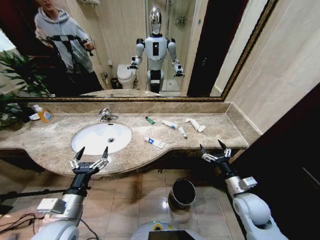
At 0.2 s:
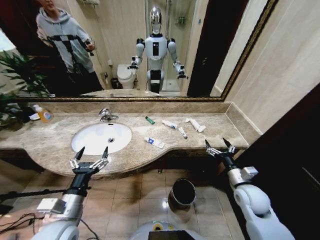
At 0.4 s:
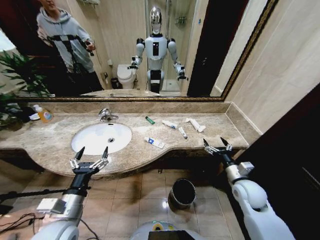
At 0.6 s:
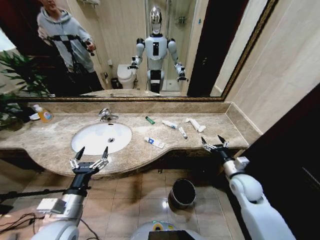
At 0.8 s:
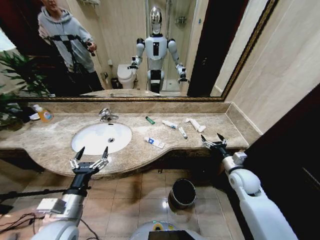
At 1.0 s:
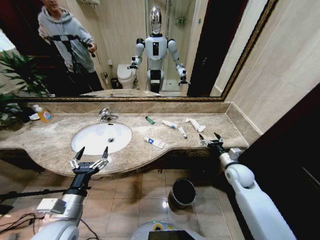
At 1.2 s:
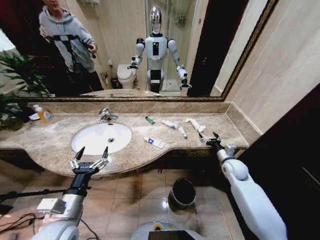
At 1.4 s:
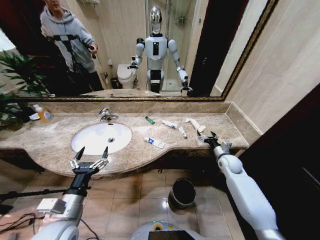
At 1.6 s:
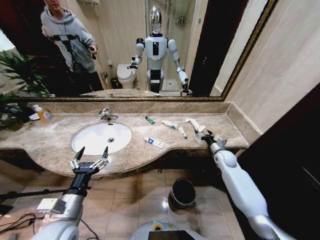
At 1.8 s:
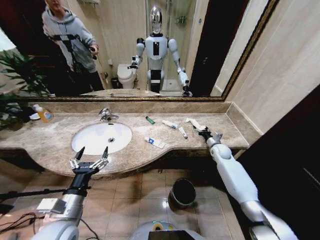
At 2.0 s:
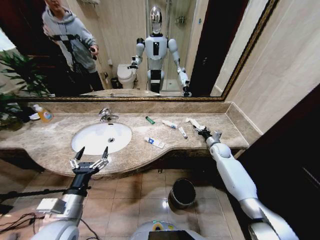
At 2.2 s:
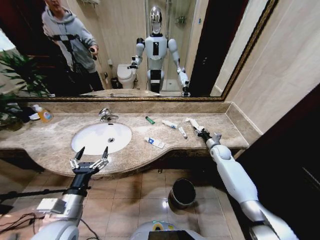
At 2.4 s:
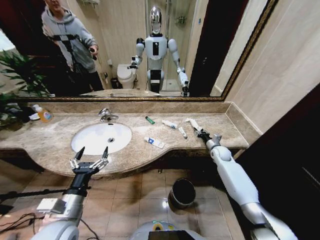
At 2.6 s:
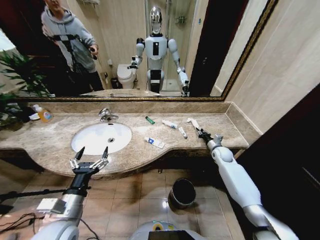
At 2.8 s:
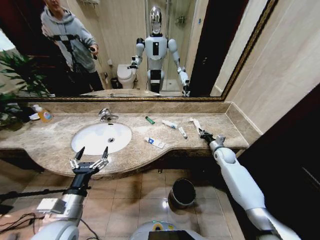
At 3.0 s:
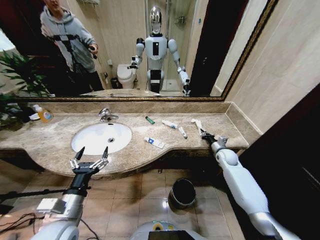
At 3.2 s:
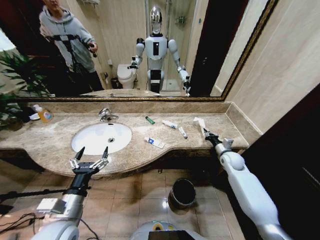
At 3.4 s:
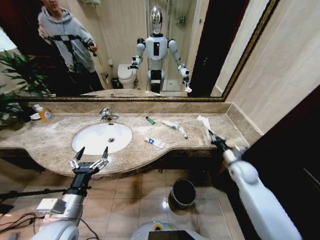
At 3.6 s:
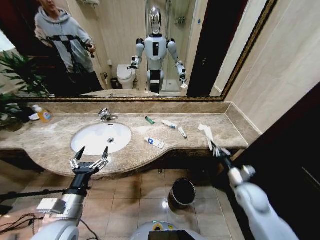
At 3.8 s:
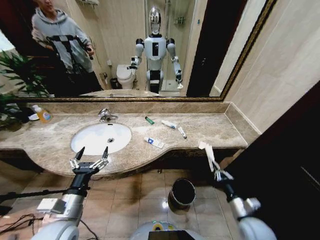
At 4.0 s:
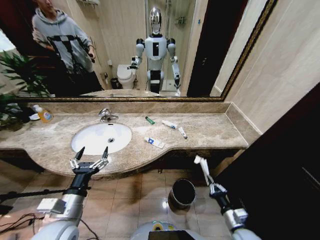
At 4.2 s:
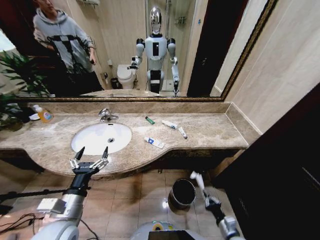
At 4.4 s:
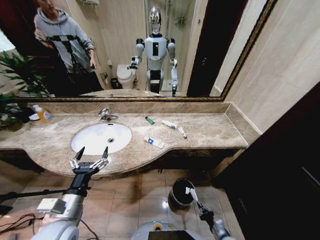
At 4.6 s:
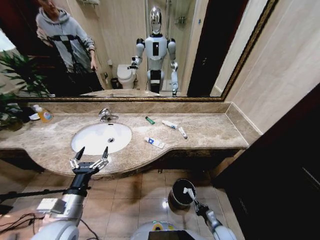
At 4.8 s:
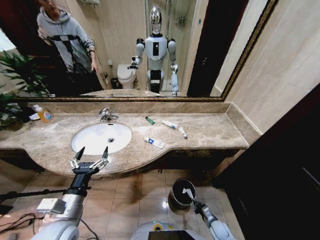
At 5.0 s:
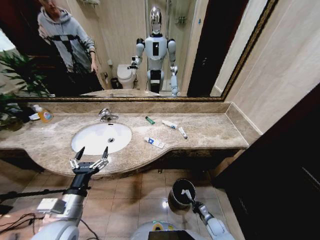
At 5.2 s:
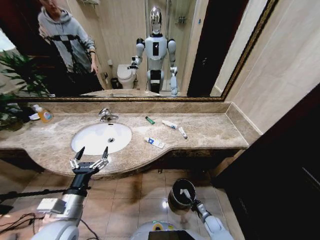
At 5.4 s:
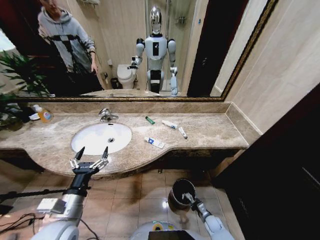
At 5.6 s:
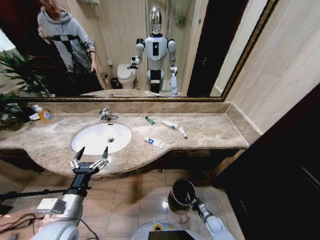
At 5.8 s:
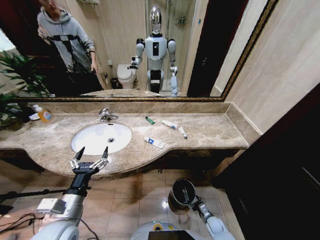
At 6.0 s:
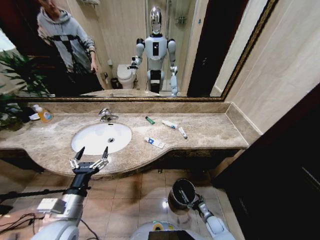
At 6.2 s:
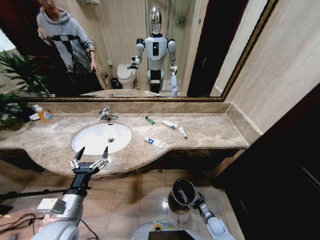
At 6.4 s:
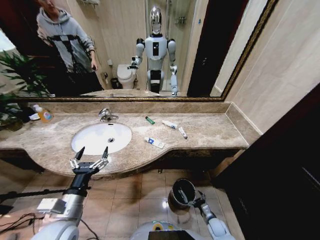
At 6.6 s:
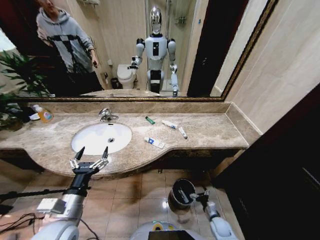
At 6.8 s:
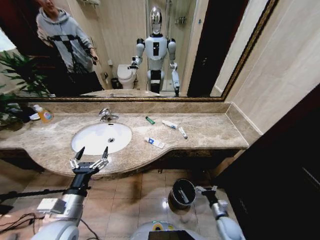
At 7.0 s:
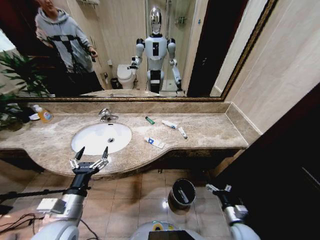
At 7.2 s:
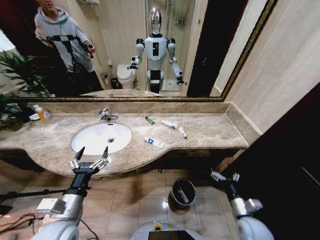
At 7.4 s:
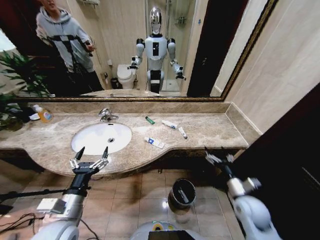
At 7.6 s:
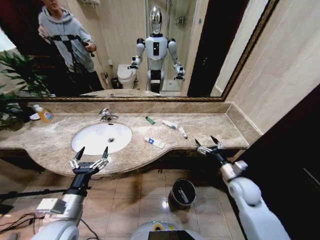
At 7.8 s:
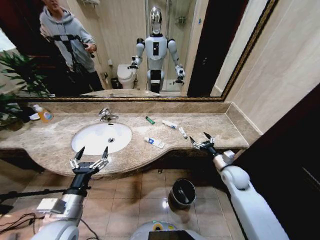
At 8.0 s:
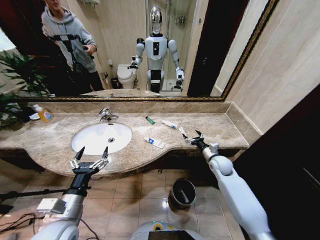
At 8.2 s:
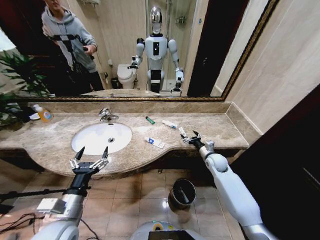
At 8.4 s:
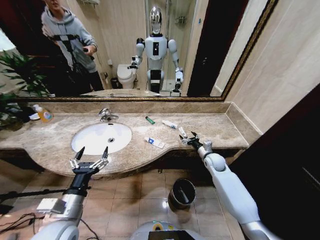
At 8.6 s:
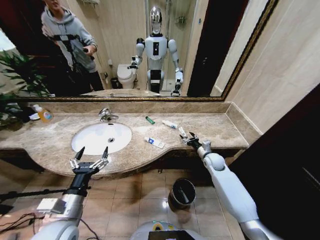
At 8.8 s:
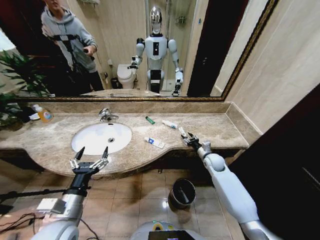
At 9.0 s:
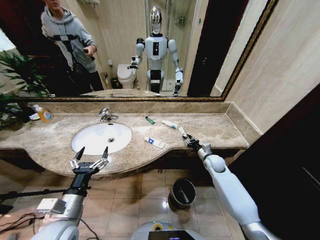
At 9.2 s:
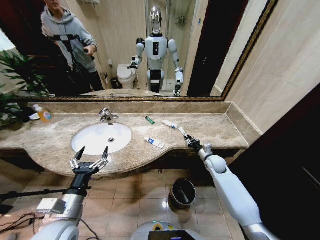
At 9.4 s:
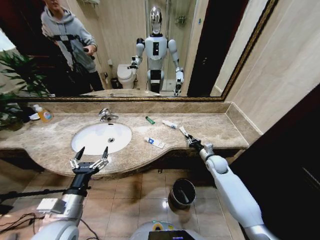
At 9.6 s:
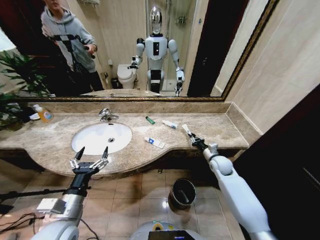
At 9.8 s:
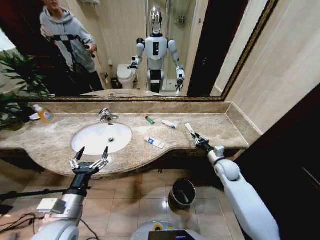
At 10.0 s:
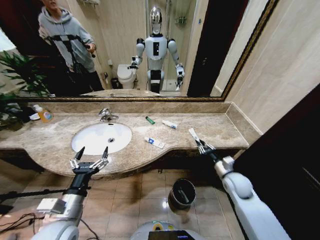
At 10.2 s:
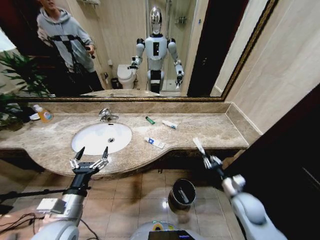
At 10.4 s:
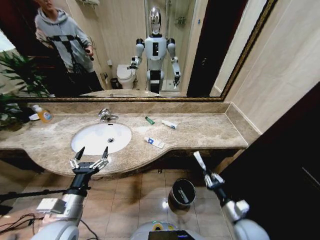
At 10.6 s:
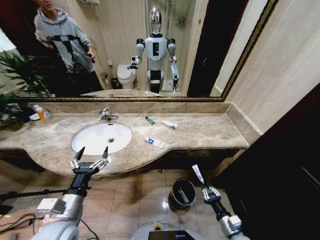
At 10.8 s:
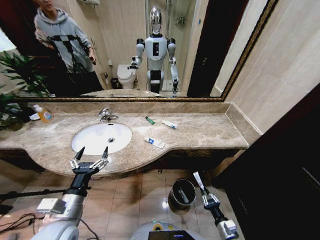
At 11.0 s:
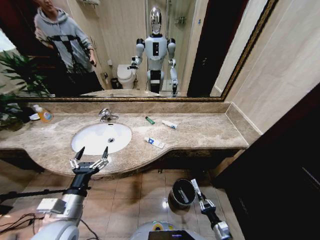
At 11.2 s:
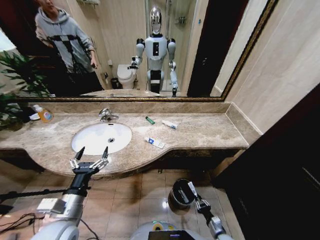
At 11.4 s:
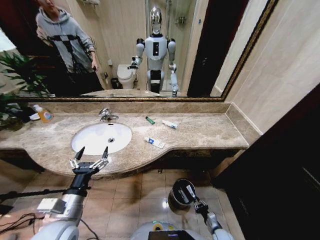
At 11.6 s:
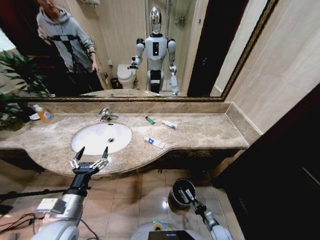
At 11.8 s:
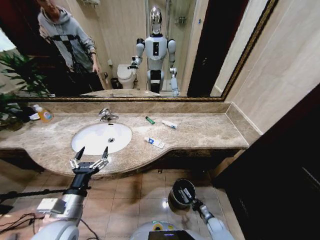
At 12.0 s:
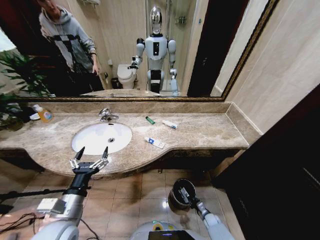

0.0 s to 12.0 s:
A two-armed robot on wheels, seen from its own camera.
Task of the whole recording: Pick up the trash from the sink and place it in the trash bin.
1.6 to 3.0 s: The right gripper closes its fingers.
3.0 to 4.4 s: The right gripper heads backward and downward, covering roughly 40 cm.
4.4 to 6.0 s: The right gripper is displaced forward and downward by roughly 10 cm, and opens.
6.0 to 7.6 s: The right gripper moves upward, approximately 35 cm.
7.6 to 9.0 s: The right gripper heads forward, covering roughly 15 cm, and closes its fingers.
9.0 to 10.4 s: The right gripper moves backward, some 30 cm.
10.4 to 12.0 s: The right gripper shifts some 30 cm downward.

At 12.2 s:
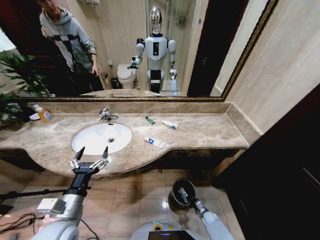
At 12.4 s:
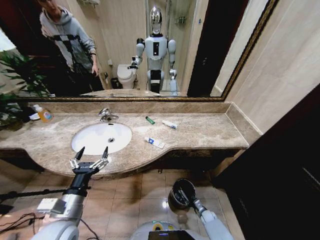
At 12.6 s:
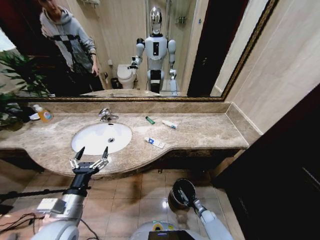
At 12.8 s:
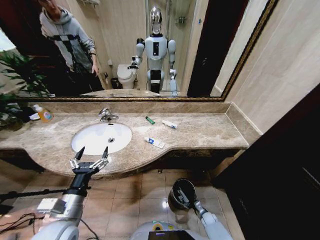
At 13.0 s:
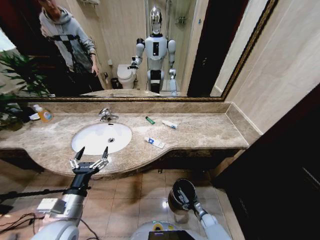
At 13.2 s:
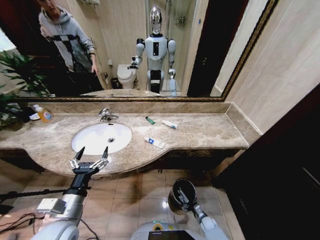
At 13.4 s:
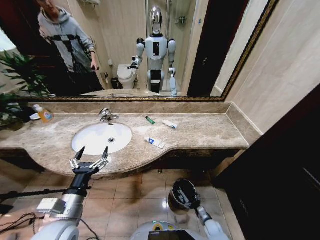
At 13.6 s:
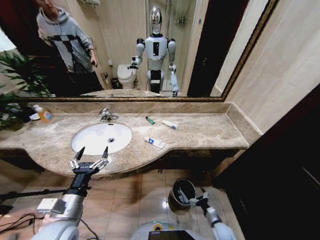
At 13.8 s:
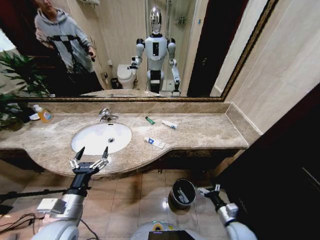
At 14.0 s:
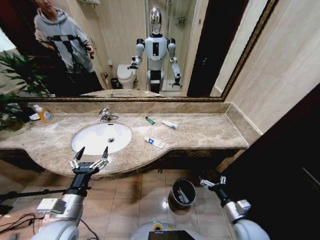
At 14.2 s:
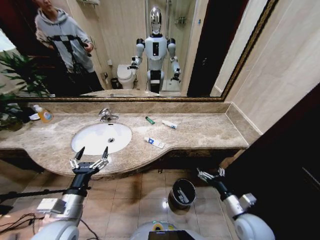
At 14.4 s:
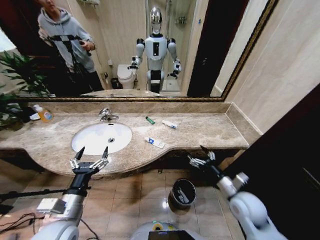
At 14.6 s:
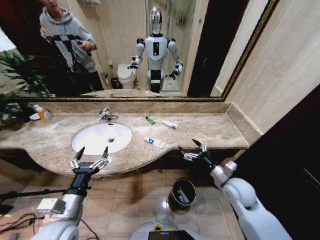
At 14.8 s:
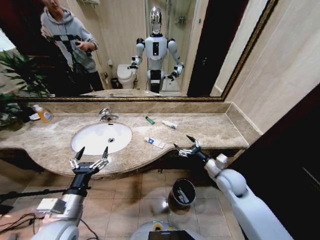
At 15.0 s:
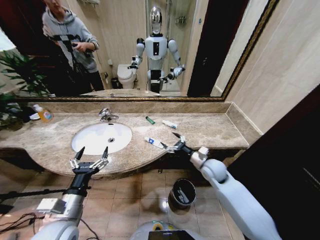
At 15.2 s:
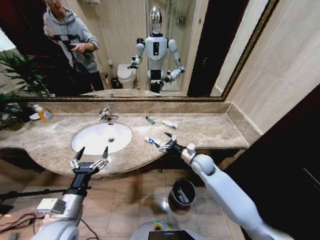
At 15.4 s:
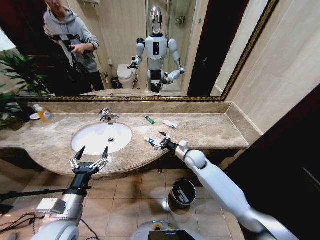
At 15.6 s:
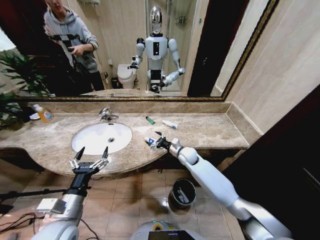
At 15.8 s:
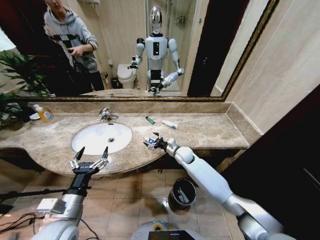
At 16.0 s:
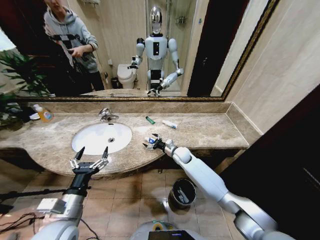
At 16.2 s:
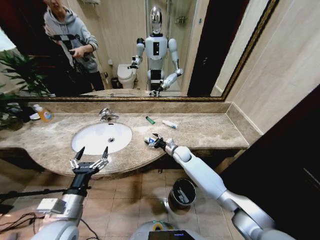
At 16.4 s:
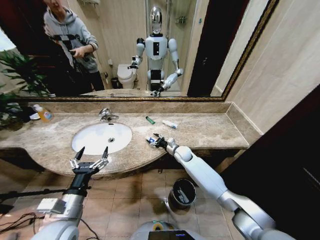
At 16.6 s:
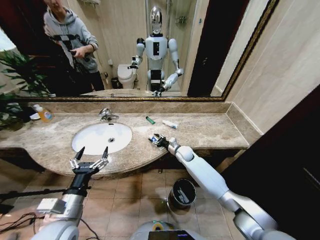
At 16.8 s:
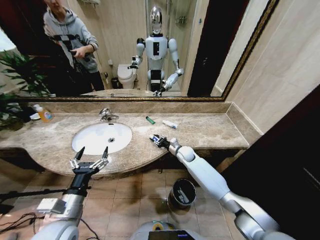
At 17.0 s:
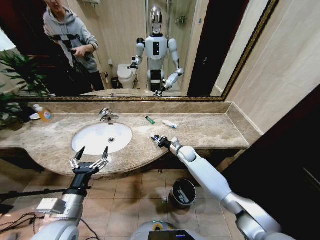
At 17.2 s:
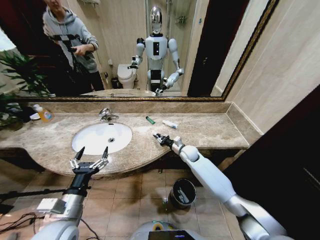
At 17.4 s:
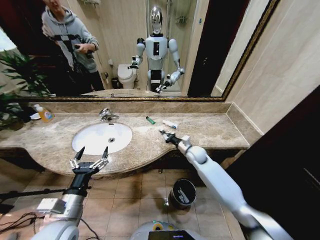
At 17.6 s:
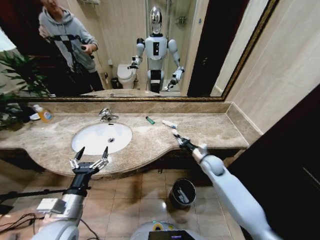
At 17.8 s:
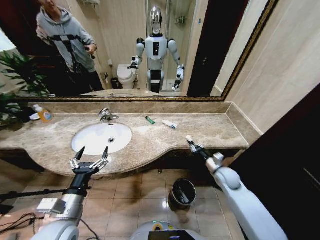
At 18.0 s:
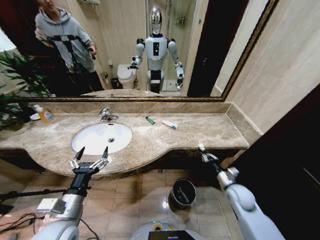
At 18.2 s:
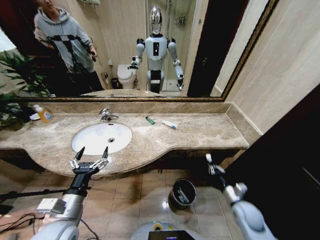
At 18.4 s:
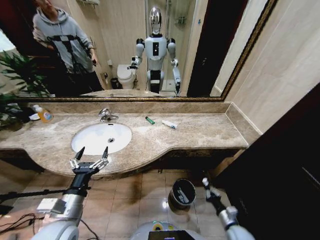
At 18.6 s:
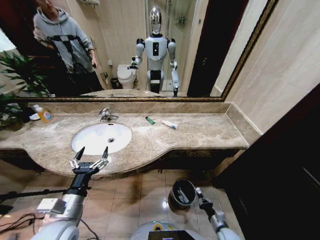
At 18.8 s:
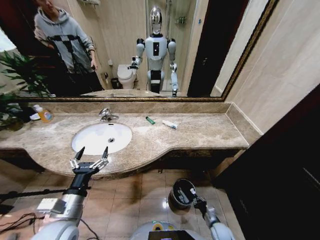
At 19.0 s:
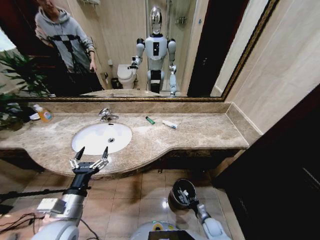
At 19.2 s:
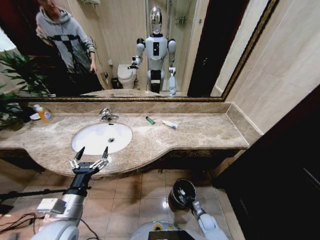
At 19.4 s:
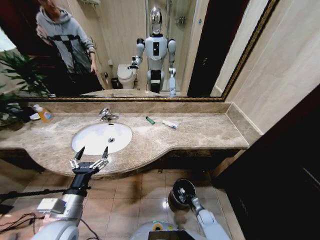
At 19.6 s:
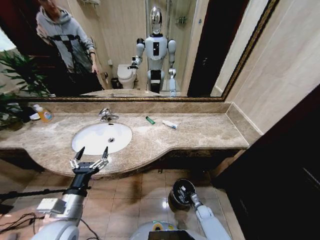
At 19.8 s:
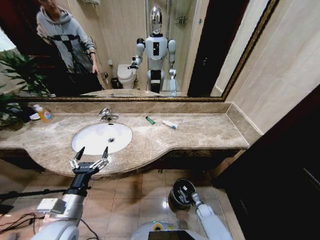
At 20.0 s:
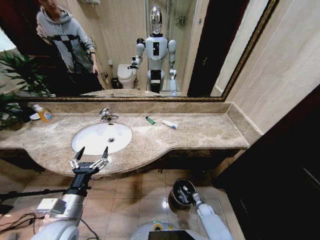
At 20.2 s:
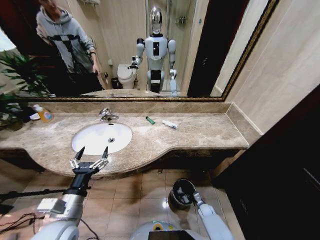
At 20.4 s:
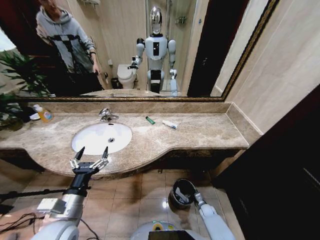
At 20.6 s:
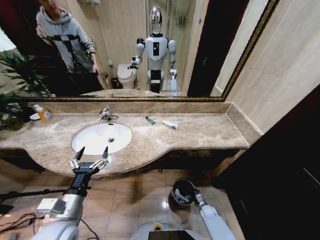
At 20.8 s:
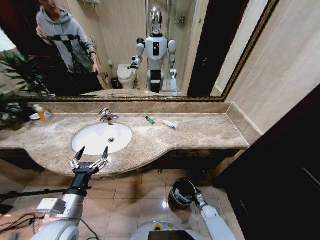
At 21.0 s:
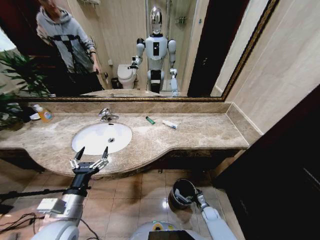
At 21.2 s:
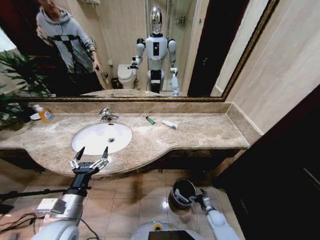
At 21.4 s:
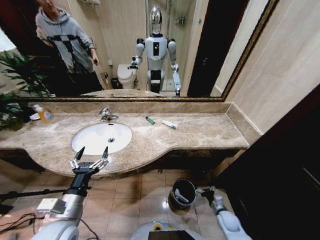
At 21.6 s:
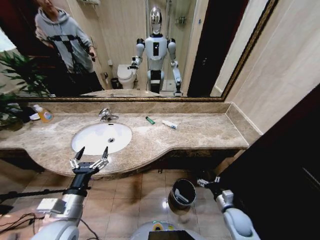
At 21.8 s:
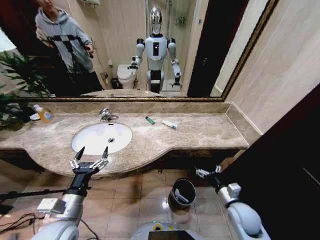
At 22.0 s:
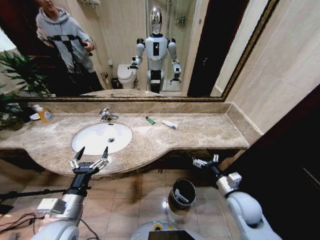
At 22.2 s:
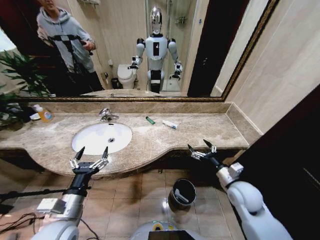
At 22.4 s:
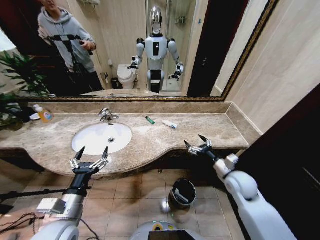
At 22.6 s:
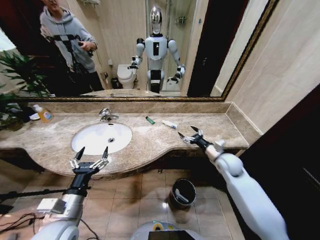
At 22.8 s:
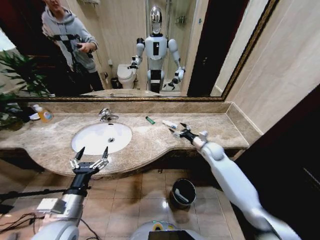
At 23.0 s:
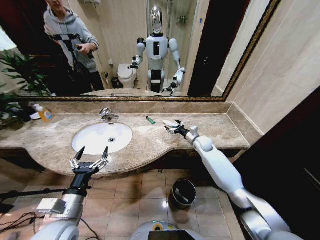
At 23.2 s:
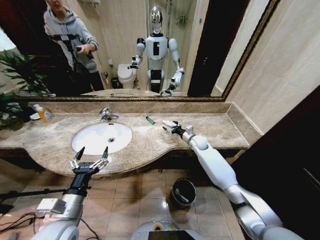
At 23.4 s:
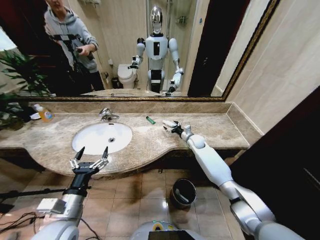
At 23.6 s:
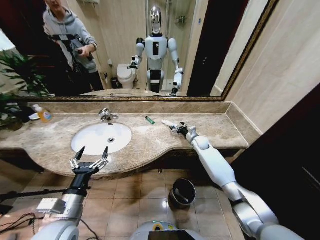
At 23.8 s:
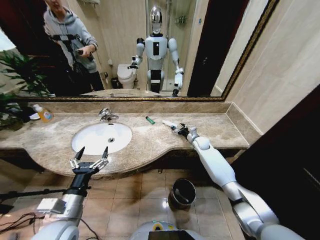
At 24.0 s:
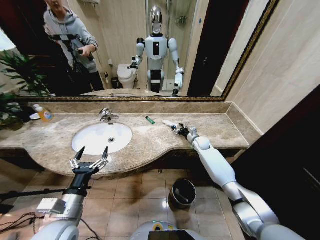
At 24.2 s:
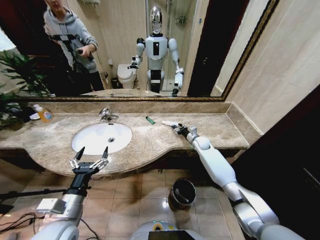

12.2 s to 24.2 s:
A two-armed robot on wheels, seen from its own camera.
Task of the whole recording: Pick up the trash from the sink and place it in the trash bin.
12.2 to 13.8 s: The right gripper is displaced upward by roughly 20 cm, and opens up.
13.8 to 15.2 s: The right gripper travels forward, upward and to the left by about 35 cm.
15.2 to 16.6 s: The right gripper is displaced forward, to the left and downward by approximately 15 cm, and closes up.
16.6 to 18.2 s: The right gripper goes some 35 cm backward and to the right, and closes.
18.2 to 19.8 s: The right gripper goes approximately 25 cm downward.
19.8 to 21.2 s: The right gripper ends up roughly 5 cm from where it was, and opens up.
21.2 to 22.6 s: The right gripper shifts some 35 cm upward.
22.6 to 24.2 s: The right gripper moves forward, approximately 20 cm, and closes its fingers.
